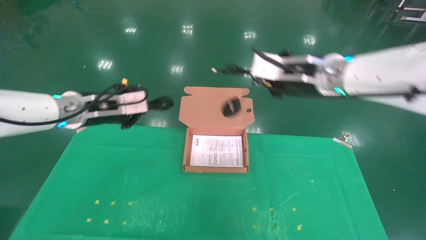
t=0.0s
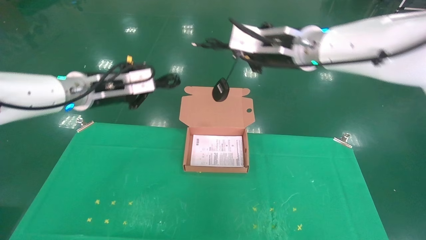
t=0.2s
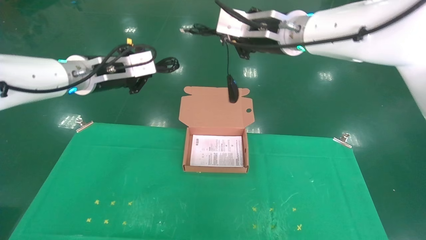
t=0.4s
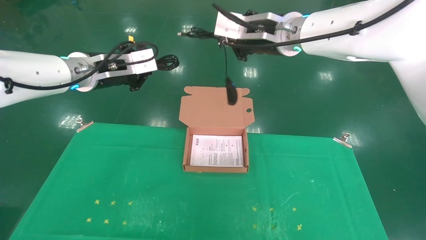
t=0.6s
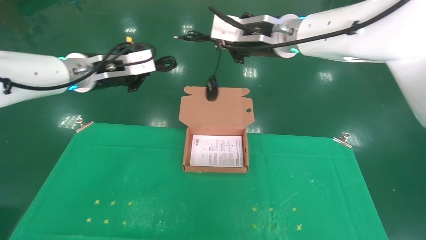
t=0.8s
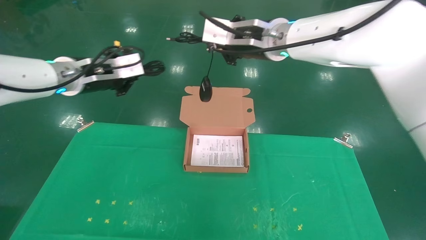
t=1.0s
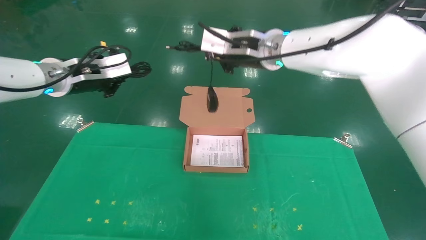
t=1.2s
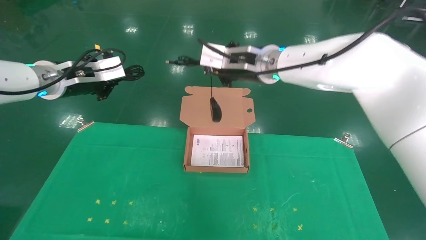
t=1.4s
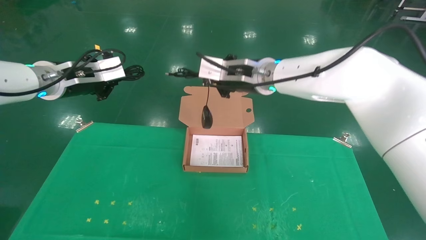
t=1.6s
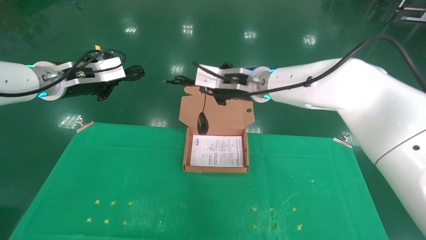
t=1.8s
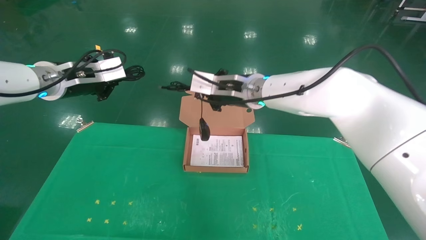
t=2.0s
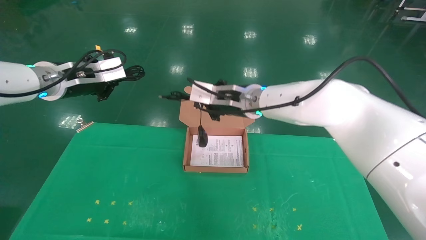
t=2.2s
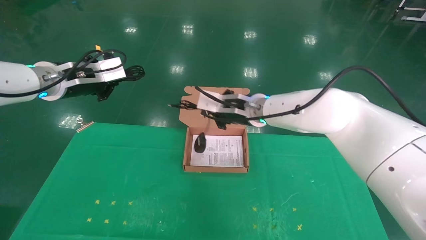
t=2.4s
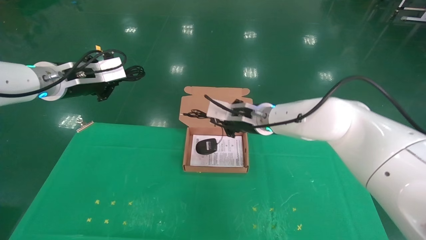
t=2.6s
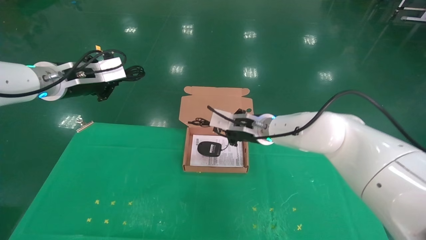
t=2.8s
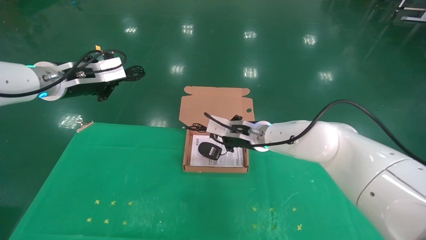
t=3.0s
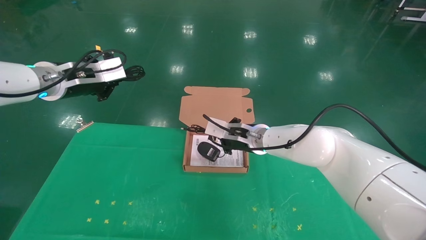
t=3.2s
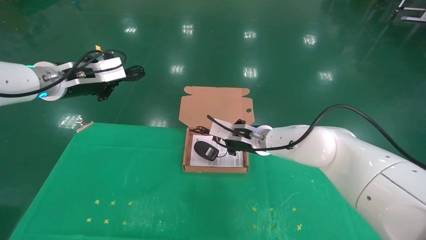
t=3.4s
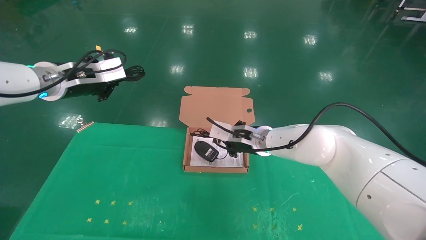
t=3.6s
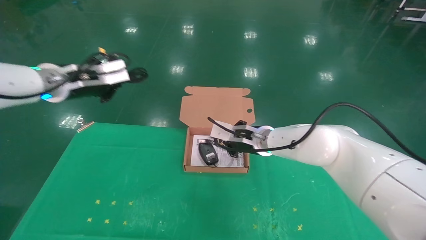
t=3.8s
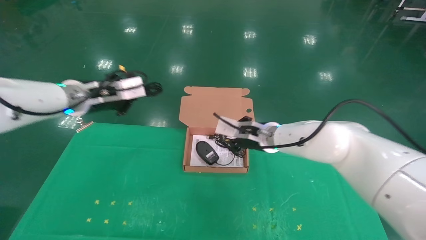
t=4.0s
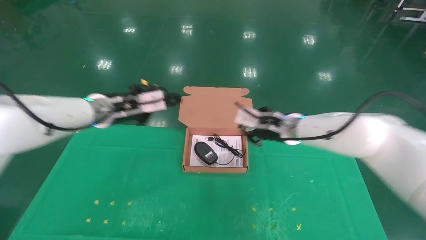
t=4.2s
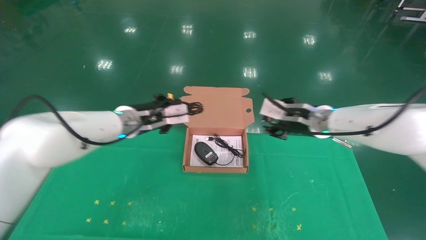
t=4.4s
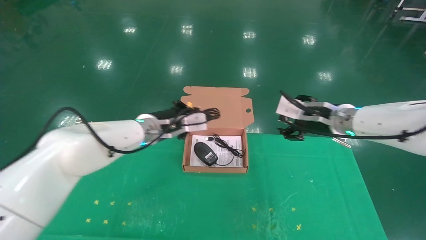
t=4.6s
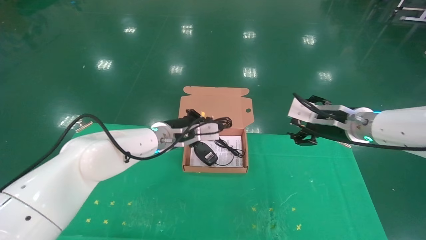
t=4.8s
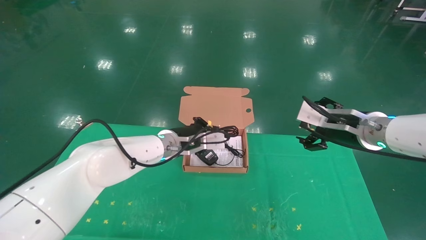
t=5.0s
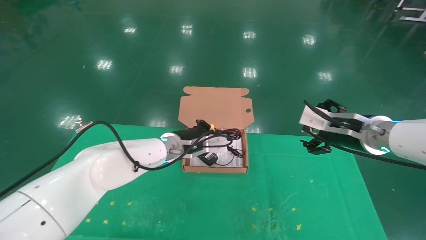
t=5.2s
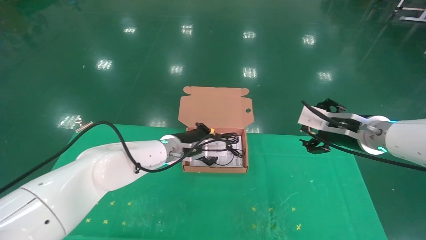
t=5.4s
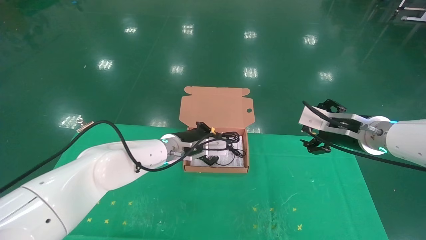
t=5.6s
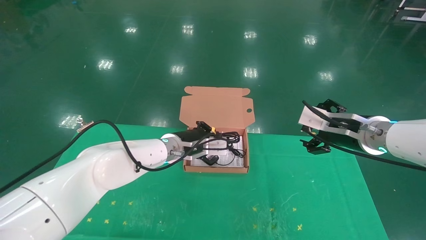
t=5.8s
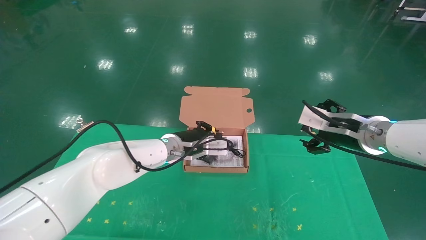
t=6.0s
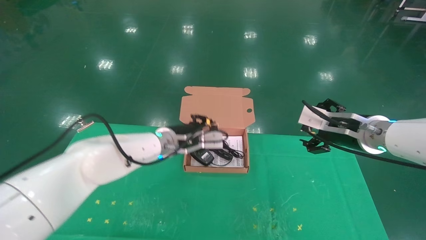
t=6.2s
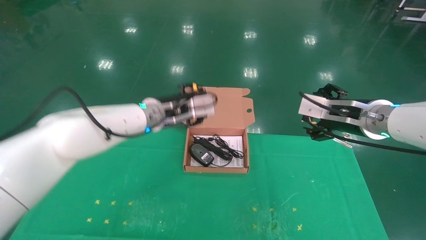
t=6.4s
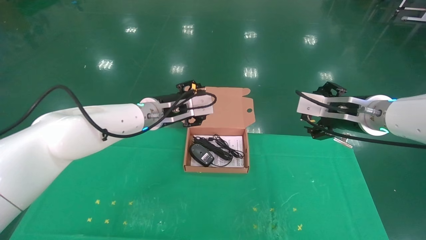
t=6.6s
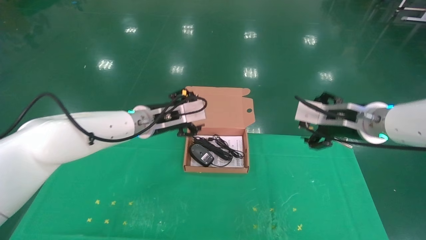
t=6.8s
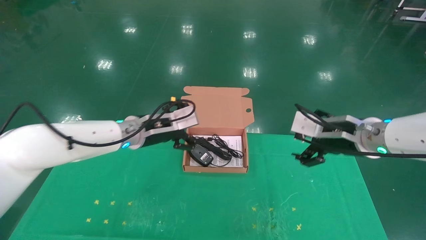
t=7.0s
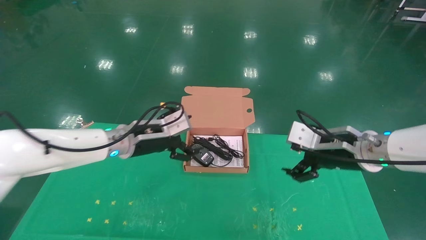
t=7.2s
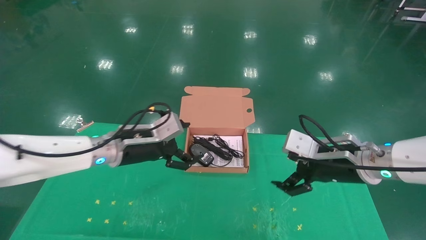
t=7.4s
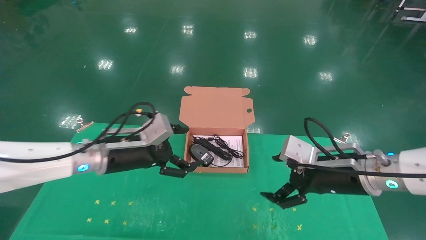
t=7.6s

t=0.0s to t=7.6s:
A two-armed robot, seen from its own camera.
Task of the whole recording: grasp data cable left put into box grasp mouse right put into box.
Step, t=0.0s to t=6.4s: Place the mouse and power cord into the box.
t=0.0s to t=1.6s: The right gripper shifts approximately 10 cm to the left and forward, while the left gripper shifts roughly 5 cm upward.
t=1.6s to t=3.0s: The right gripper travels downward by some 15 cm.
t=3.0s to t=4.6s: The right gripper moves to the right, some 15 cm, and opens up; the left gripper is displaced to the right and downward by roughly 20 cm.
t=4.6s to t=6.0s: The right gripper changes place by some 5 cm, and opens its fingers. Meanwhile the left gripper shifts by approximately 5 cm.
t=6.0s to t=7.6s: The left gripper heads to the left and backward, covering roughly 15 cm, and opens, while the right gripper is displaced backward by about 5 cm.
